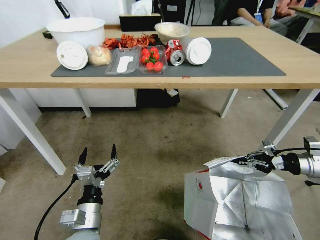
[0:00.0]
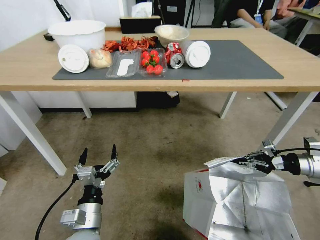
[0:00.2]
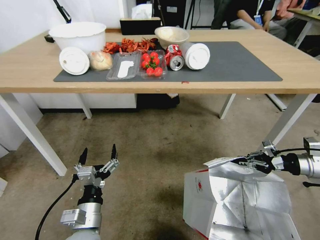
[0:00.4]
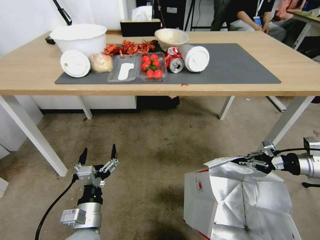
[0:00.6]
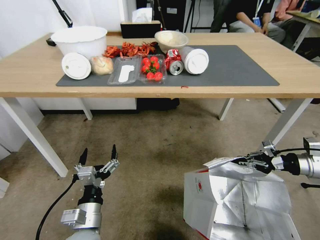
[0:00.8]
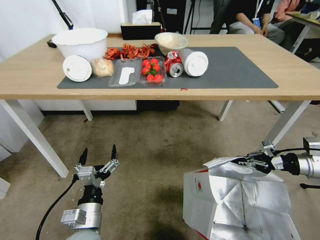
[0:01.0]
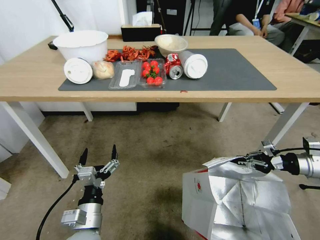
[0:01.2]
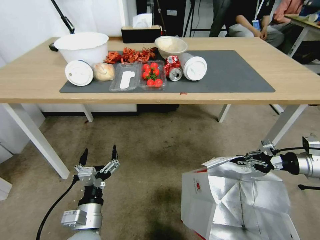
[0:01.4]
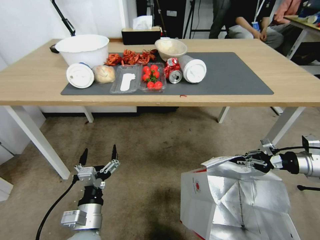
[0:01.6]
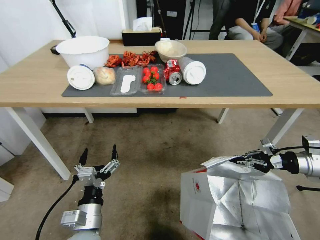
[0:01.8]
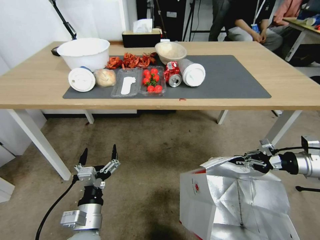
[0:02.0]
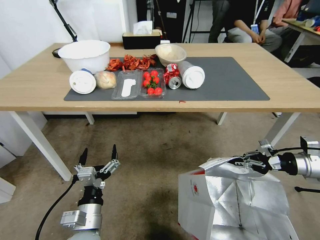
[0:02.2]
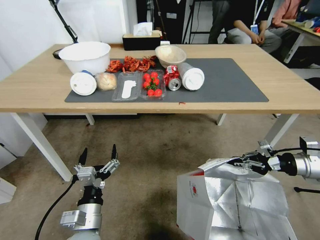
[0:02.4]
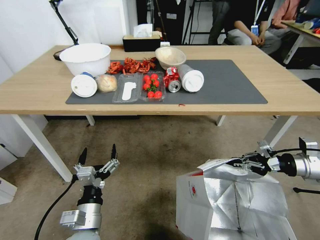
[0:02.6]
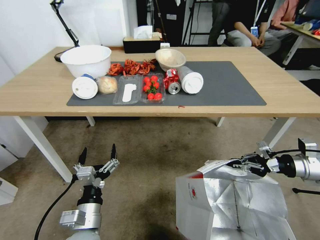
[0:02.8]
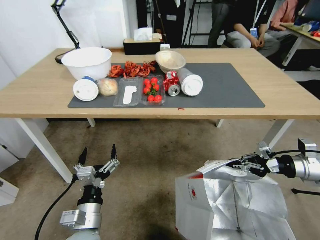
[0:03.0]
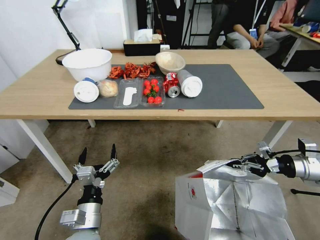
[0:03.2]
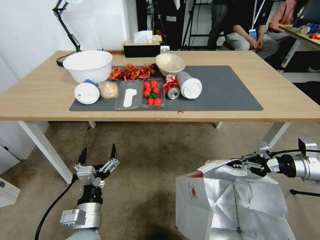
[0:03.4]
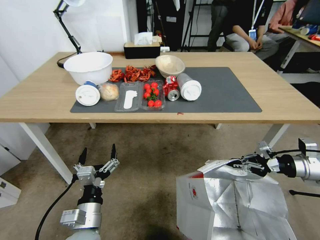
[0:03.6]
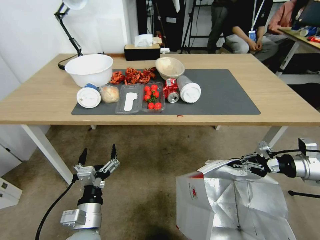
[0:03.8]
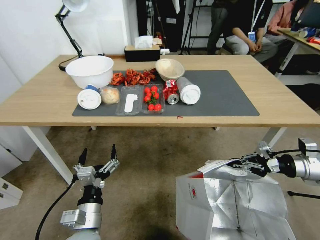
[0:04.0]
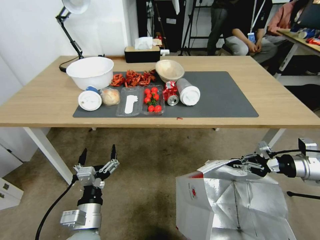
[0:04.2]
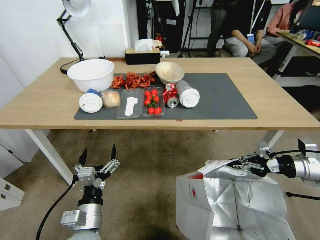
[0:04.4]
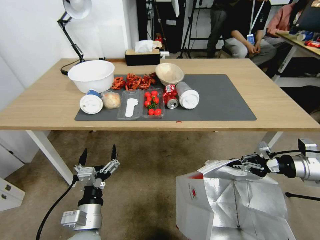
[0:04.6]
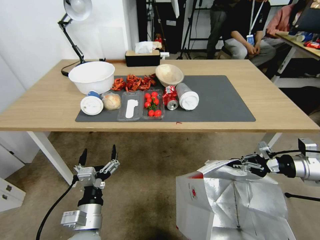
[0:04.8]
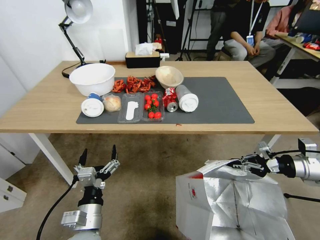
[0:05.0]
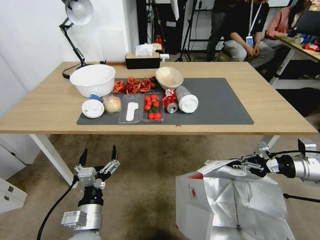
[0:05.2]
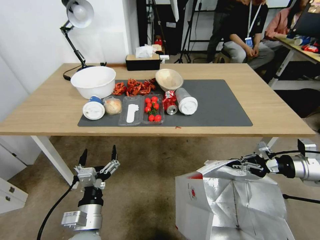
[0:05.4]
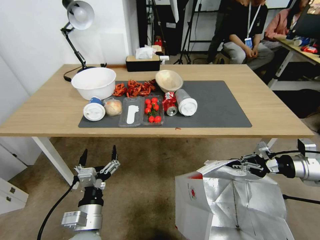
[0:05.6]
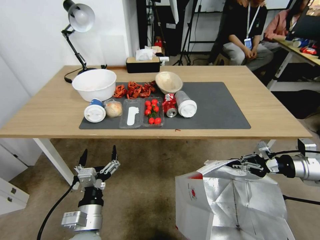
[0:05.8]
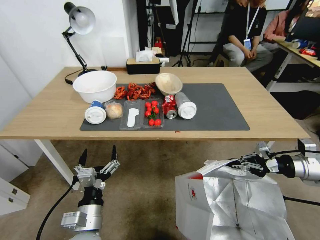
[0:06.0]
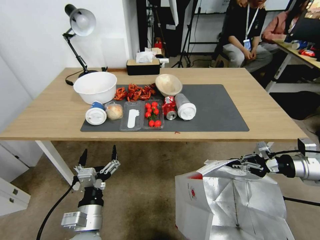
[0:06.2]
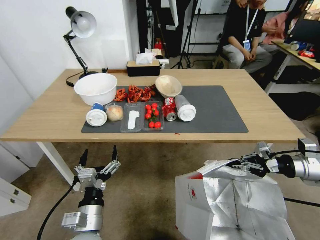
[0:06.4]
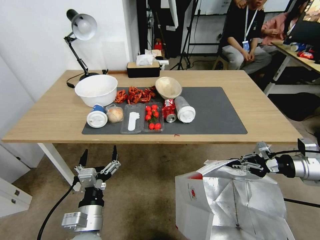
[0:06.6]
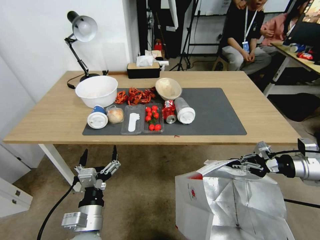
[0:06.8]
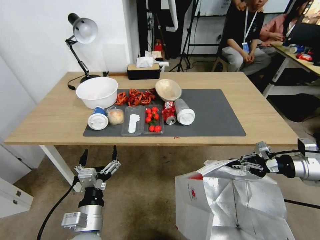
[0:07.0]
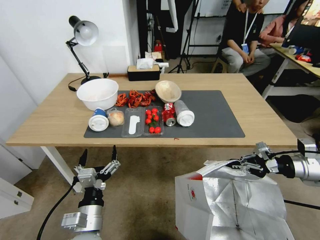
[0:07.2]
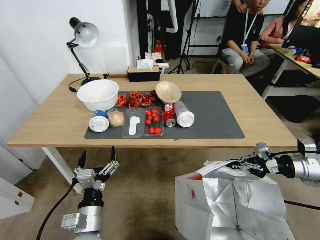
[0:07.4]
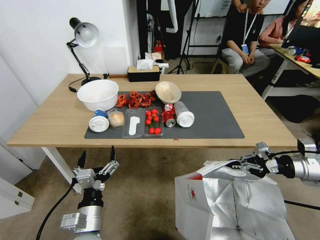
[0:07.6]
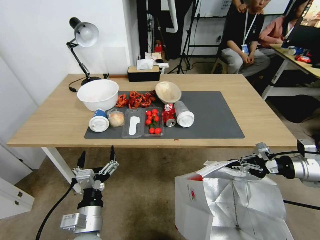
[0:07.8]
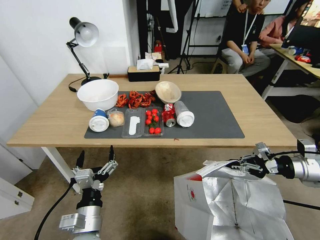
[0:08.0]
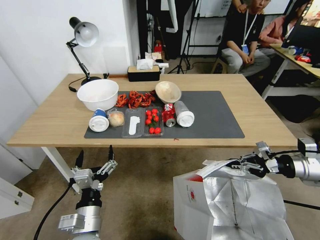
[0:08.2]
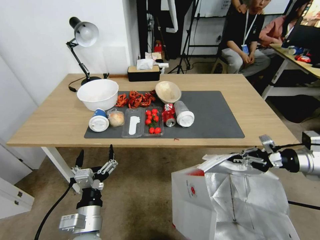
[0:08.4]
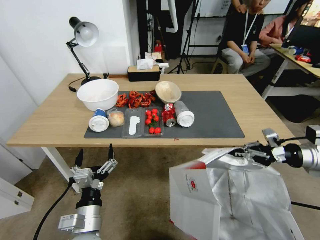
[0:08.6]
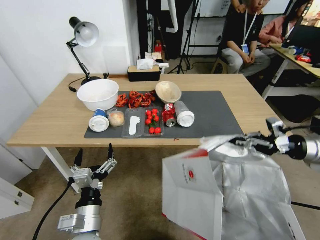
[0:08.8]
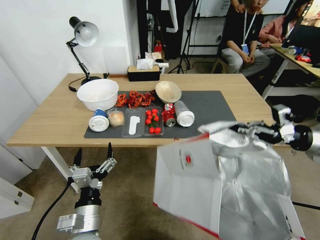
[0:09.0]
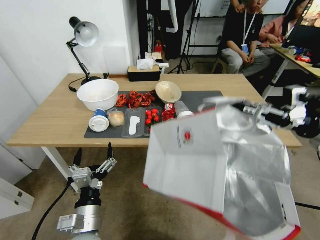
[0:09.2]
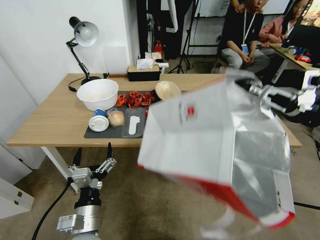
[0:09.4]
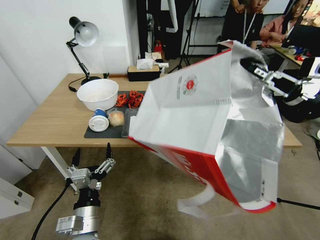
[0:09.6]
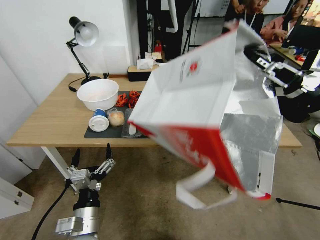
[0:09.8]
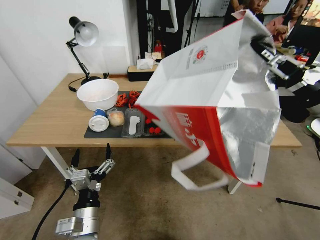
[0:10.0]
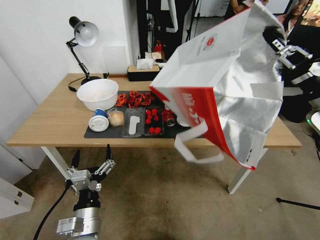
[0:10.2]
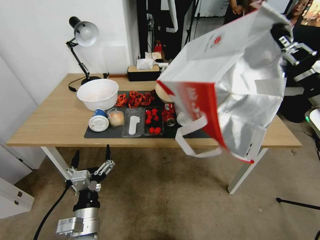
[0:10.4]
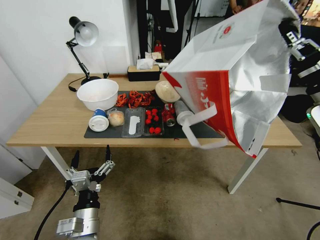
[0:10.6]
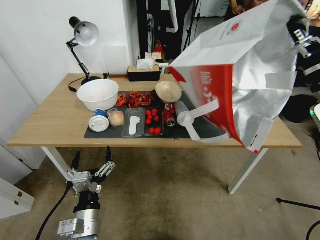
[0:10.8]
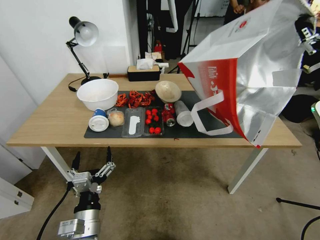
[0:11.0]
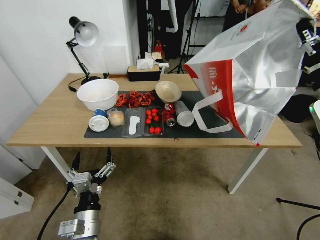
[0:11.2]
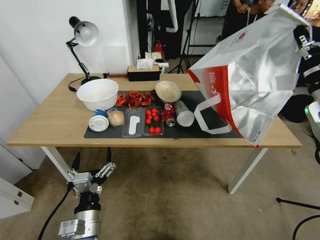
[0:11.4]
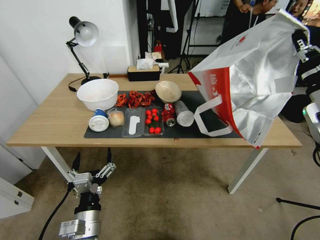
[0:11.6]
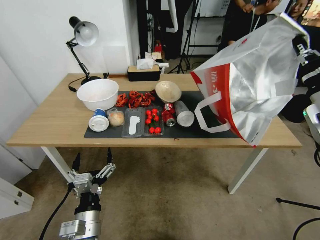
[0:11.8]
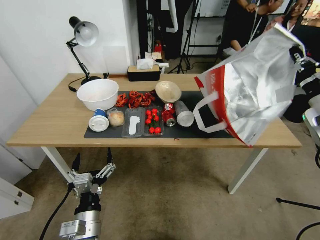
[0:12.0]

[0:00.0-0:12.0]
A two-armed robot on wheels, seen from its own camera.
Task of the whole recording: Pick up the food delivery bag from the floor and place it on the table.
0:07.6 to 0:09.0: The right gripper heads upward, covering about 10 cm.
0:09.0 to 0:10.4: The right gripper goes approximately 5 cm upward.

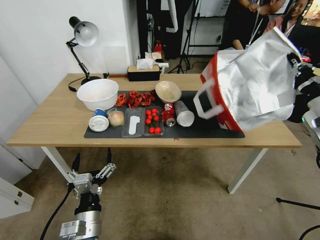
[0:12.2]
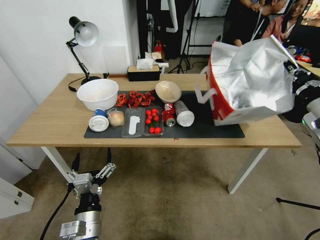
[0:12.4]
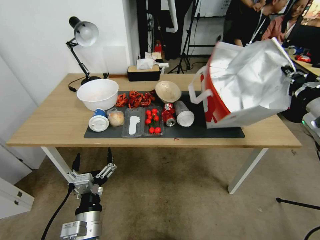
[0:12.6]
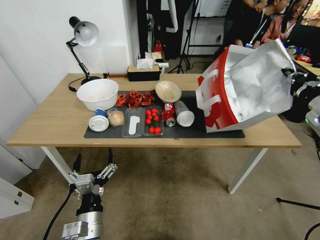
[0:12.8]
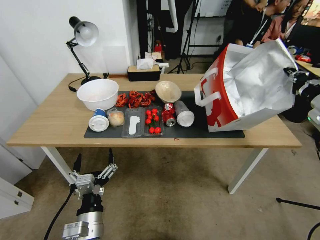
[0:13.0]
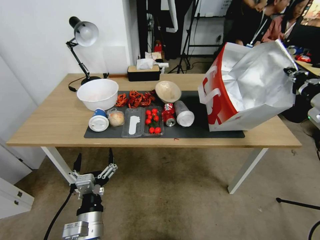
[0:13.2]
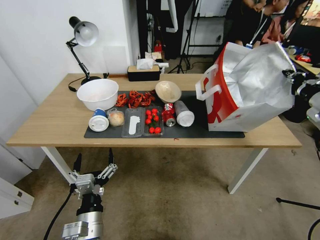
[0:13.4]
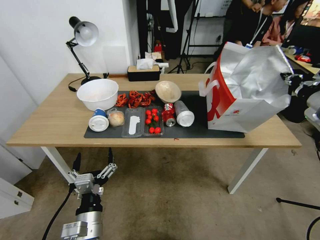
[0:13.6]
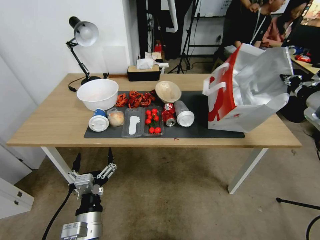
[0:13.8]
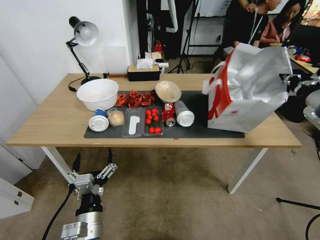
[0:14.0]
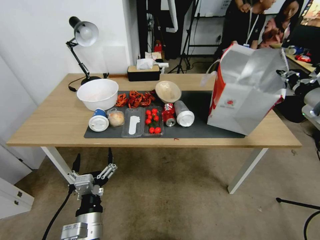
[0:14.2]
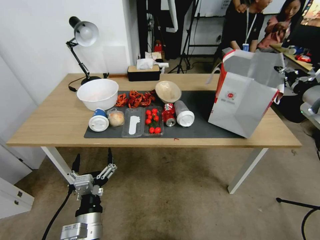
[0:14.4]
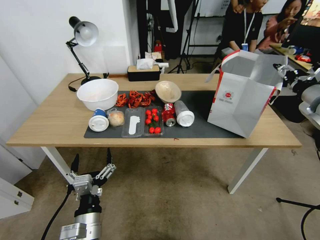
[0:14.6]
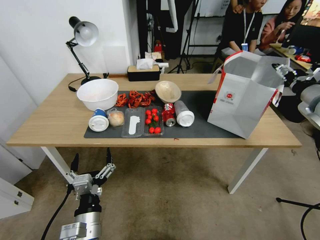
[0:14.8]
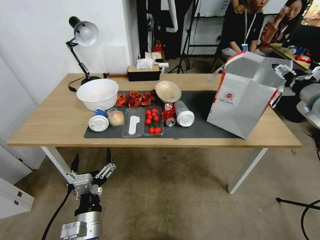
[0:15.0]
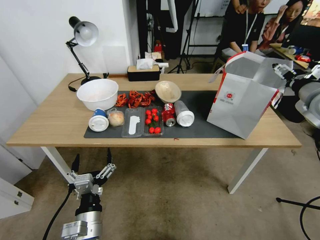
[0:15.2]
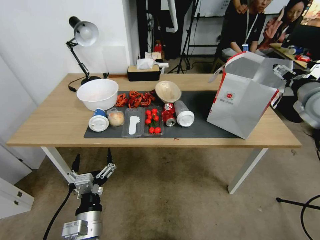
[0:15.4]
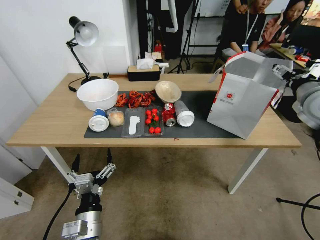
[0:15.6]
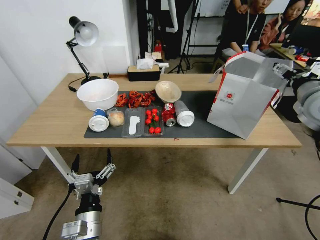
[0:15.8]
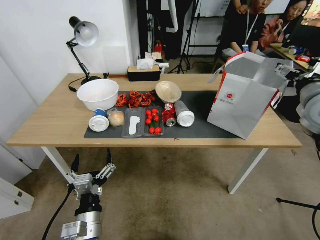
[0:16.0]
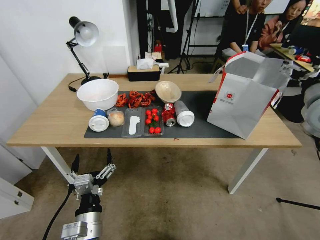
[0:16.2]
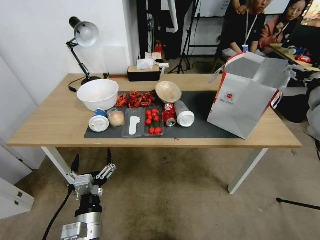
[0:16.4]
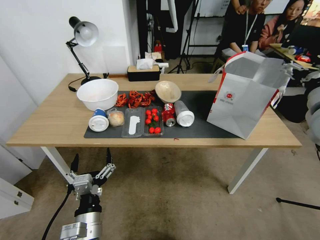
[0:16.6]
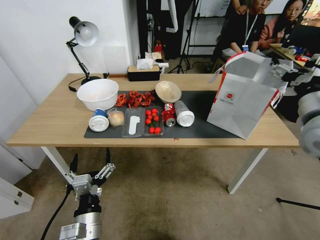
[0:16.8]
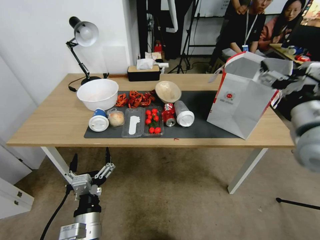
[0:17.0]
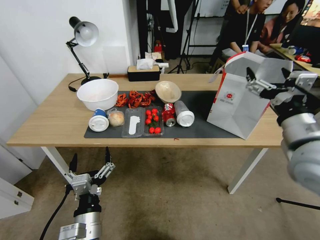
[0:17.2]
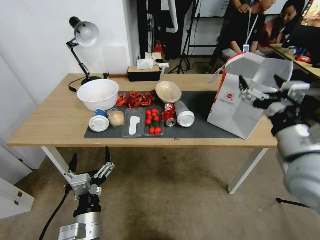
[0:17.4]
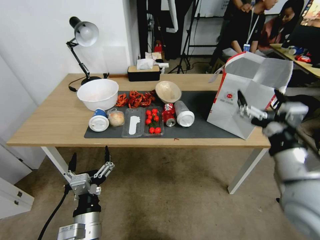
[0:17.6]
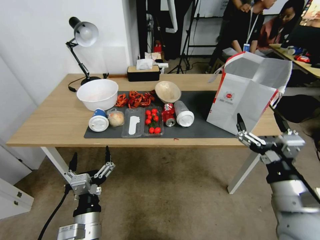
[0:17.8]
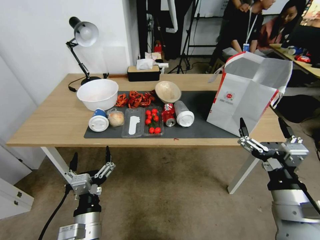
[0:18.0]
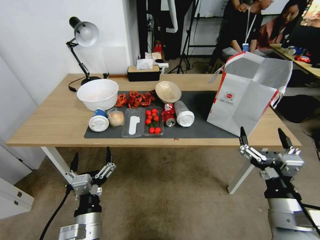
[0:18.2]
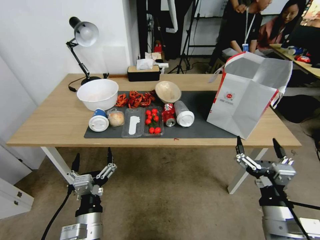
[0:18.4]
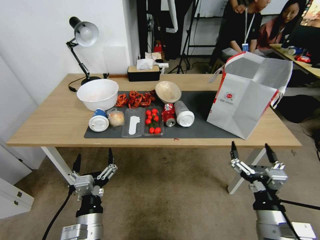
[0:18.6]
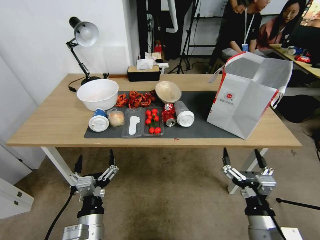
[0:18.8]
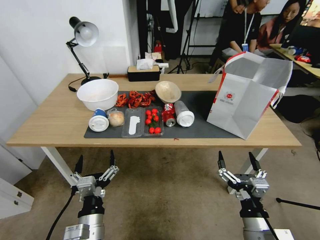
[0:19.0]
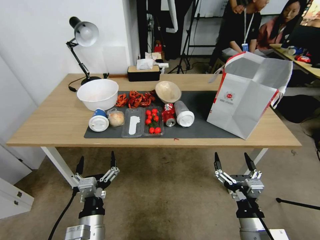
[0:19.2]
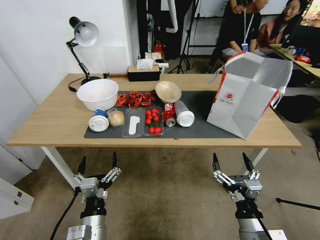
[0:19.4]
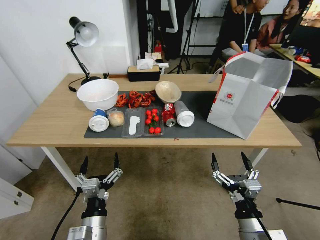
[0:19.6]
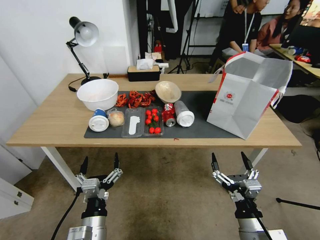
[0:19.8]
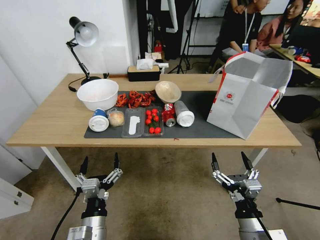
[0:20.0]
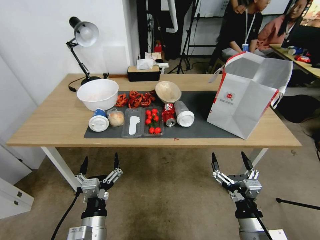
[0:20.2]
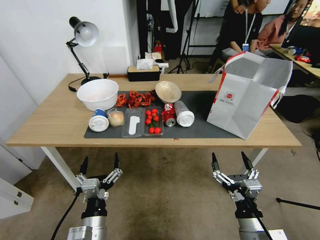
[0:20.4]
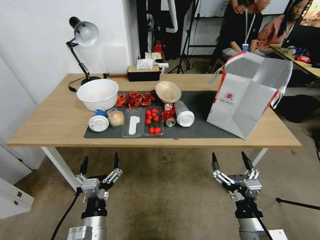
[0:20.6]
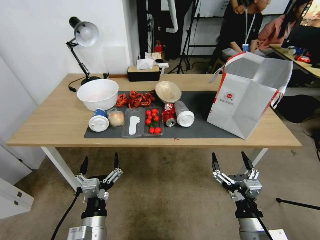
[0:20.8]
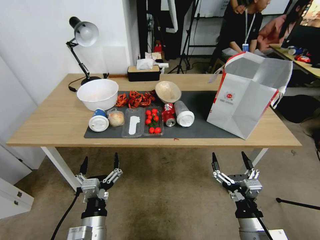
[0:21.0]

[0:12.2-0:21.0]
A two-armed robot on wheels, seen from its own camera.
Task of the whole recording: Pick up the food delivery bag from the floor and place it on the table.
0:13.6 to 0:15.2: The right gripper opens up.
0:15.2 to 0:16.6: The right gripper shifts some 10 cm backward and to the left.
0:16.6 to 0:18.0: The right gripper moves backward, downward and to the left, some 25 cm.
0:18.0 to 0:19.6: The right gripper shifts some 15 cm downward.
0:19.6 to 0:21.0: Both grippers stay about where they are.
